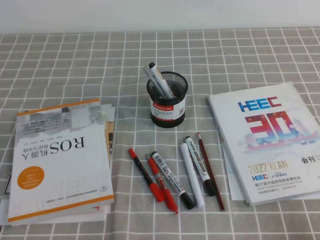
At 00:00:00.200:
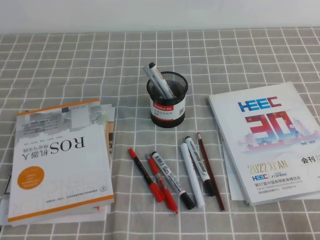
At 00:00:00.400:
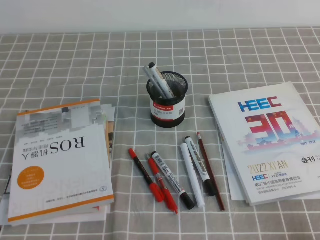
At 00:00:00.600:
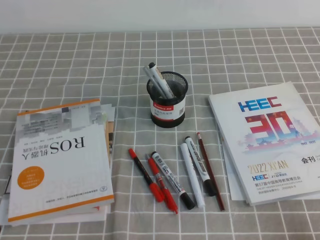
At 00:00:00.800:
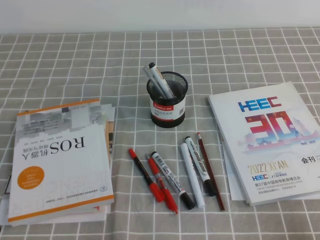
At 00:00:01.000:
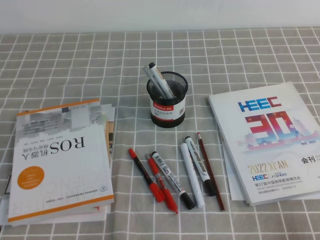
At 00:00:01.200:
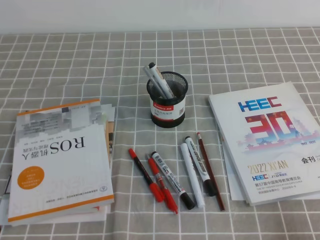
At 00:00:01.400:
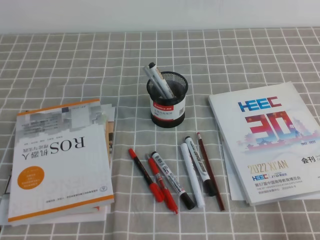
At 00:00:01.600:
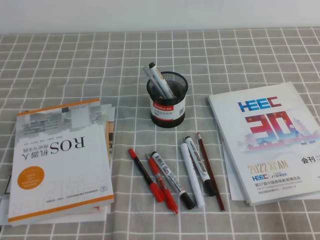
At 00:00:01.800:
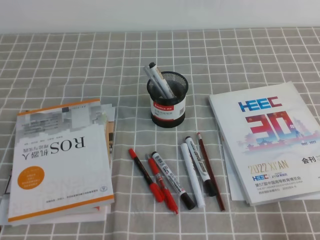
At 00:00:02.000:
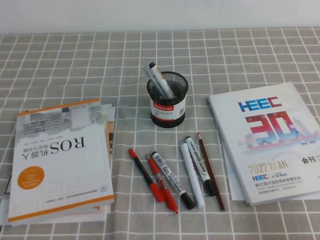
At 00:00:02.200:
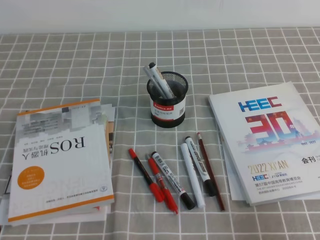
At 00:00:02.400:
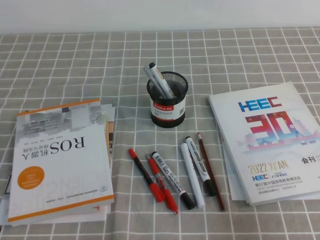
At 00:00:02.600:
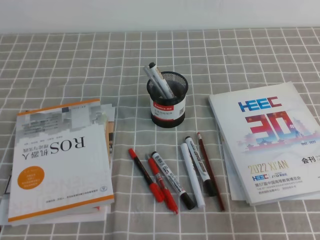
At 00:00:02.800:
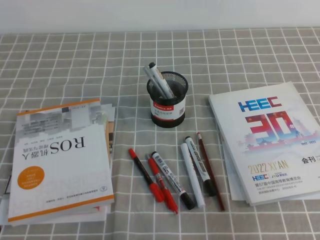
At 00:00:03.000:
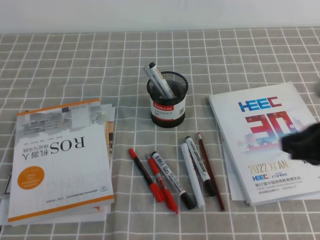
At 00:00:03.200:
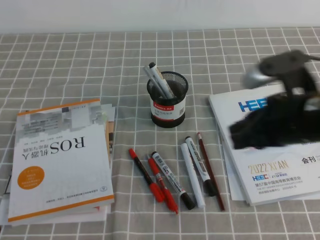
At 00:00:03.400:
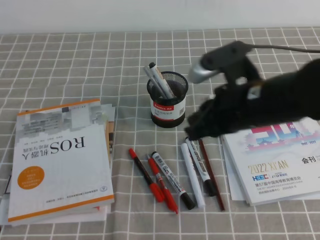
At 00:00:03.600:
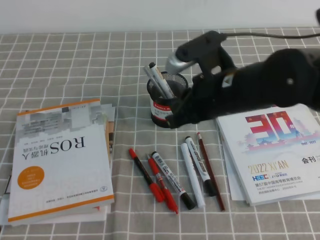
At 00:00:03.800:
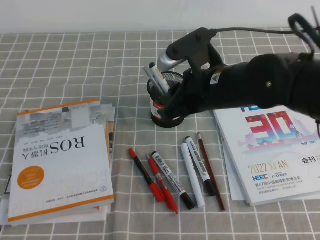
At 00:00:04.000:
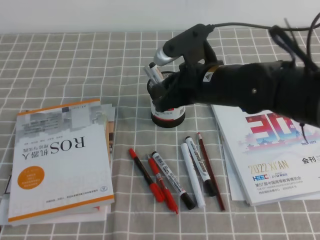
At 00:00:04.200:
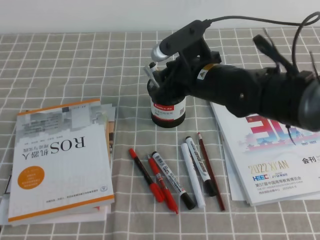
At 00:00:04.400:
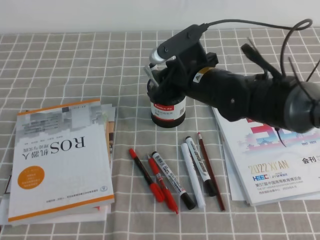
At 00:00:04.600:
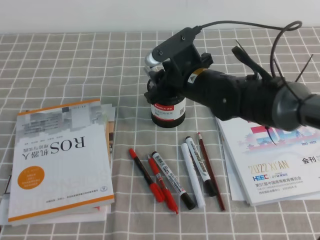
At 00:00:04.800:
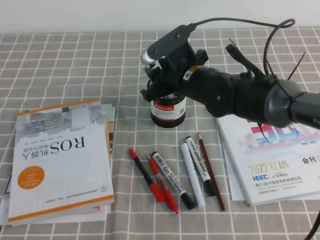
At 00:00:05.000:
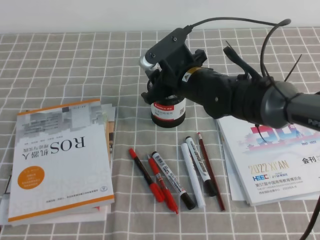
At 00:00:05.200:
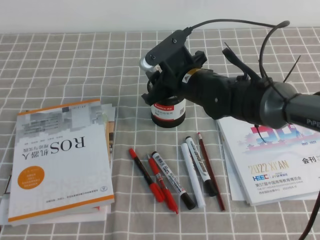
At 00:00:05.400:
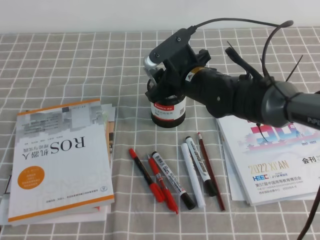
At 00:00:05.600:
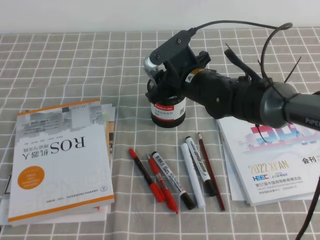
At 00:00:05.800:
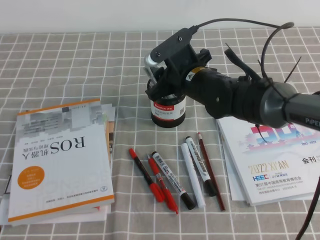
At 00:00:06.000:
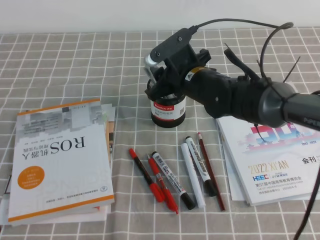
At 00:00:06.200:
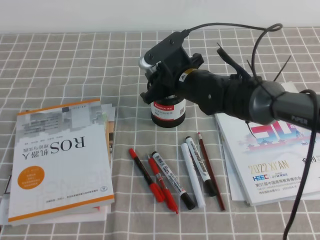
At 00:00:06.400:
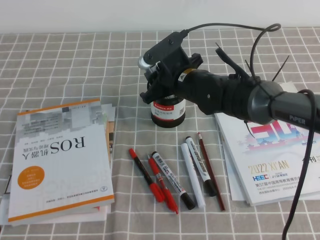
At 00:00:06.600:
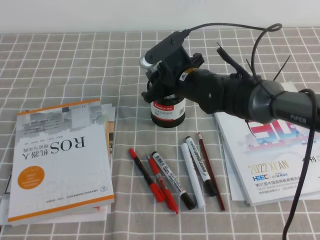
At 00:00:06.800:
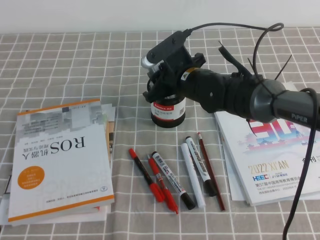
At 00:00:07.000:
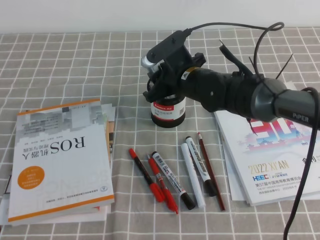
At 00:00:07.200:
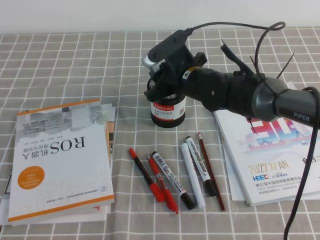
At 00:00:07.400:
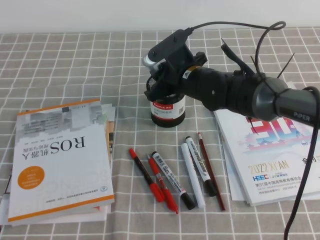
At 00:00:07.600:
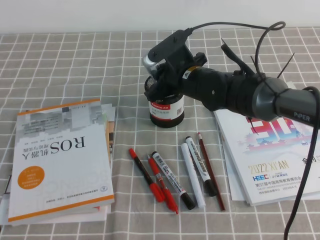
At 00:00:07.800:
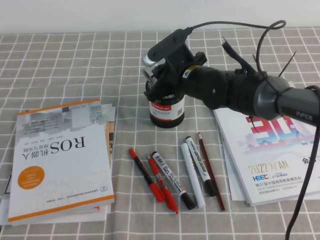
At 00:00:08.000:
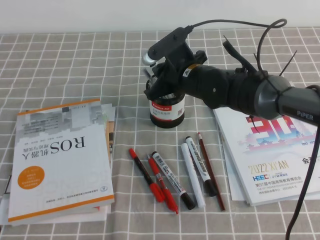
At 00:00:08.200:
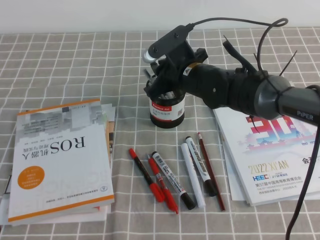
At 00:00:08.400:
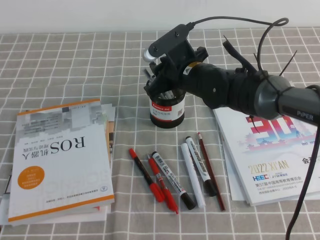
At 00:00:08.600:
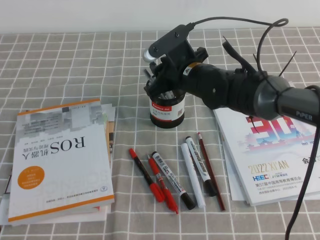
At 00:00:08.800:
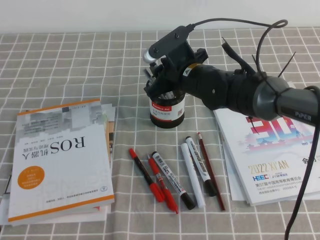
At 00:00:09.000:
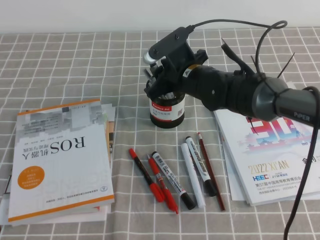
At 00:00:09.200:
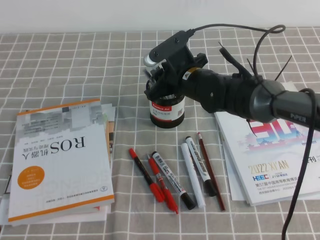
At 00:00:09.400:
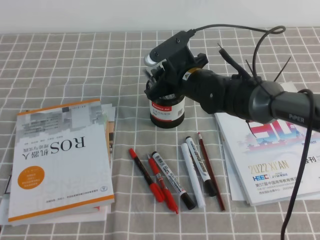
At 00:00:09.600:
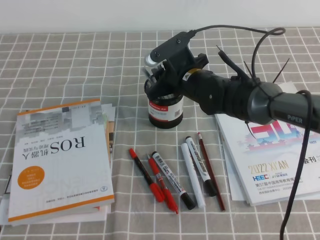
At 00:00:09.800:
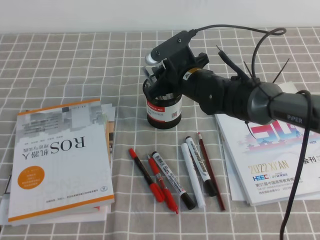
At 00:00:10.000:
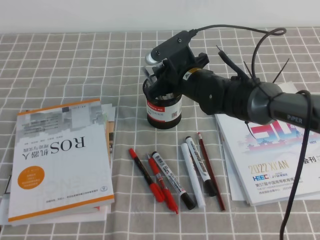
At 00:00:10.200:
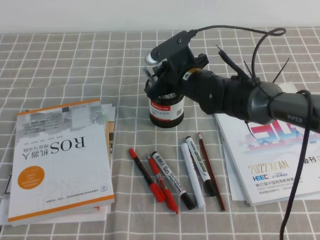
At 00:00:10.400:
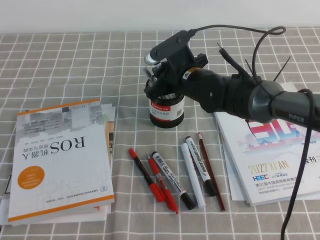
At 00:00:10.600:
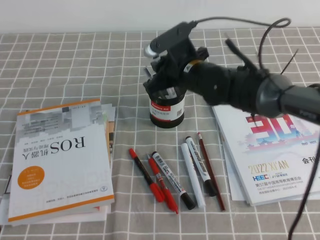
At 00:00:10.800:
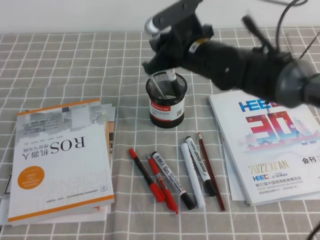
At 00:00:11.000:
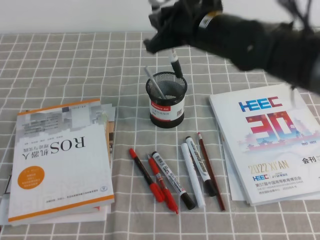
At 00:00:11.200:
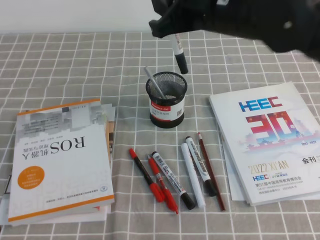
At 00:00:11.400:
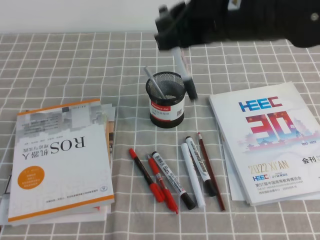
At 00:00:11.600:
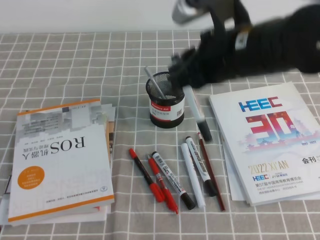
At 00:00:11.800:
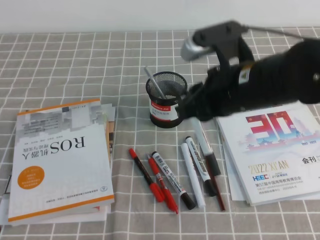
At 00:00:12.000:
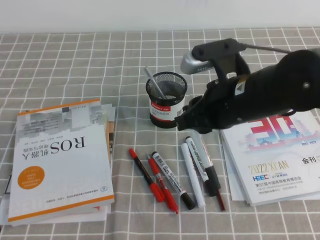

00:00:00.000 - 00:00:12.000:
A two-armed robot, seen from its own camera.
00:00:01.600 - 00:00:03.000: The right gripper heads forward, upward and to the left, covering approximately 20 cm.
00:00:03.000 - 00:00:04.400: The right gripper shifts approximately 25 cm to the left and forward, and opens its fingers.
00:00:04.400 - 00:00:06.000: There are only small adjustments of the grippers.
00:00:06.000 - 00:00:07.600: The right gripper closes its fingers.
00:00:07.600 - 00:00:09.000: Both grippers stay put.
00:00:09.000 - 00:00:10.400: The right gripper closes up.
00:00:10.400 - 00:00:12.000: The right gripper goes approximately 15 cm backward, upward and to the right.

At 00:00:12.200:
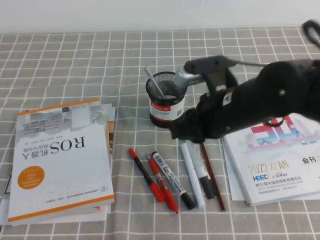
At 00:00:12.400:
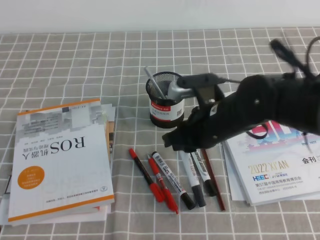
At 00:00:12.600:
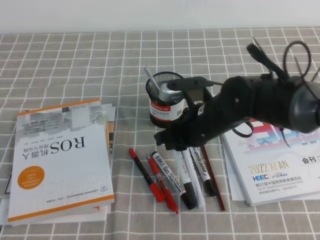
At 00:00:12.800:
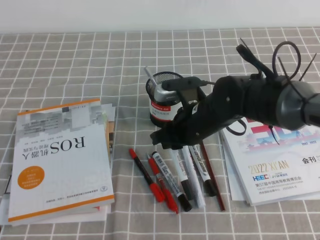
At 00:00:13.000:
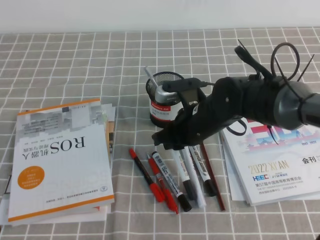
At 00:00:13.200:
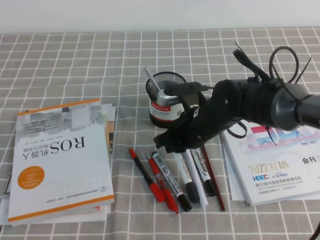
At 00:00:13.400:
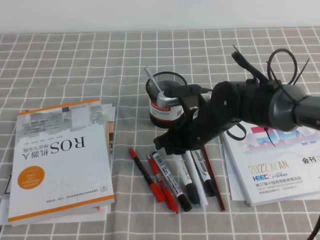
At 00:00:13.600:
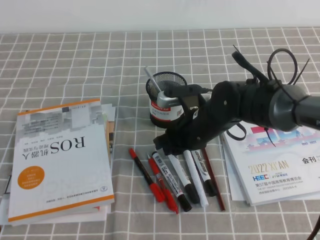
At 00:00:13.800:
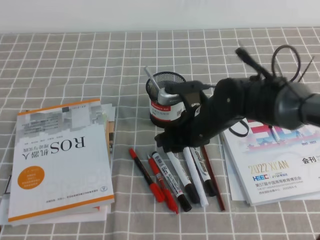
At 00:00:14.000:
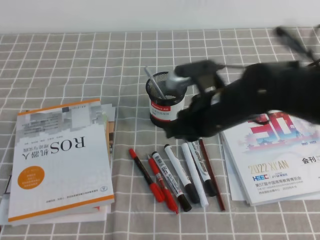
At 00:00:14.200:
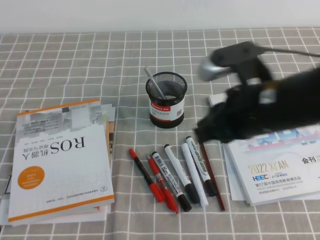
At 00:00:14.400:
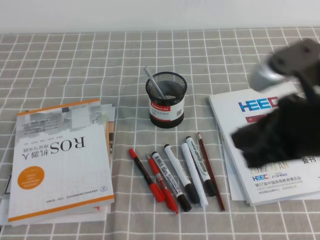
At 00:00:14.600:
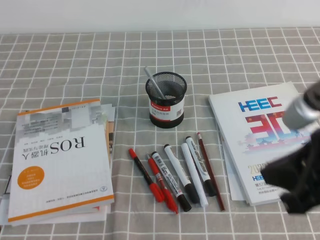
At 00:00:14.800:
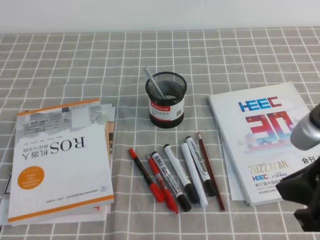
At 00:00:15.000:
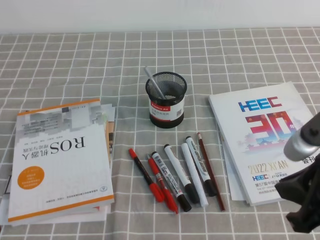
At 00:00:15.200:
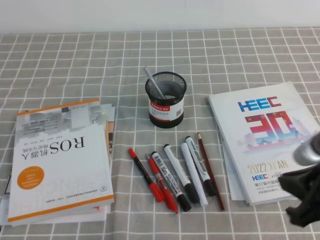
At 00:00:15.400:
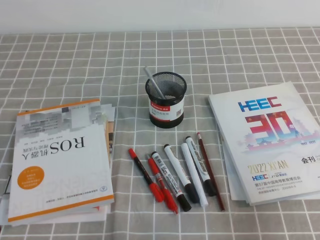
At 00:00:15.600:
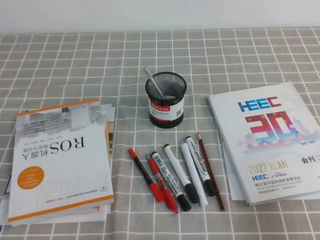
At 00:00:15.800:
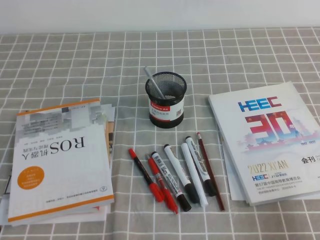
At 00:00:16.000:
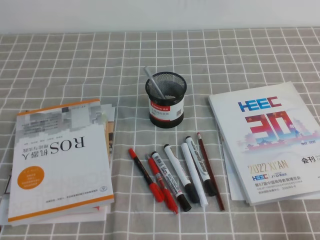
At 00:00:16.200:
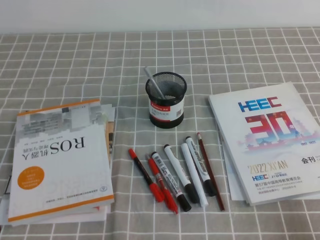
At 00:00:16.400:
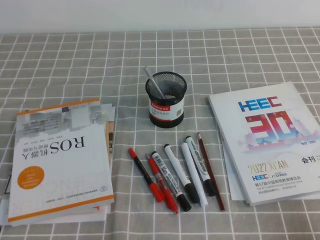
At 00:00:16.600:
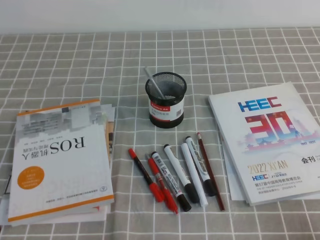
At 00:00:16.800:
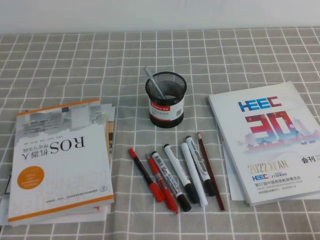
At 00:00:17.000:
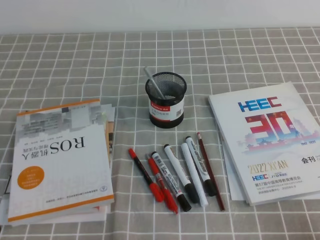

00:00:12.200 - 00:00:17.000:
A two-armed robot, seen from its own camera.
Step, 00:00:12.200 - 00:00:17.000: Pick up the pen from the pen holder.
00:00:12.200 - 00:00:13.800: The right gripper travels downward by approximately 5 cm, and opens.
00:00:13.800 - 00:00:15.400: The right gripper shifts roughly 30 cm to the right and backward, and closes its fingers.
00:00:15.400 - 00:00:17.000: The right gripper travels downward, backward and to the right by approximately 15 cm.
